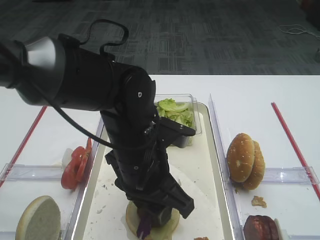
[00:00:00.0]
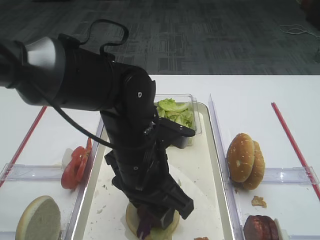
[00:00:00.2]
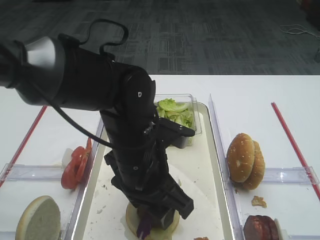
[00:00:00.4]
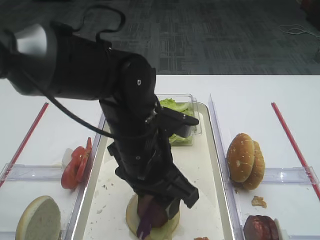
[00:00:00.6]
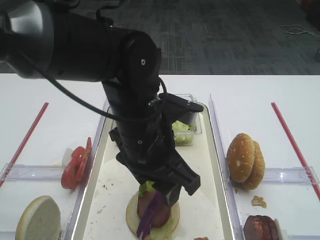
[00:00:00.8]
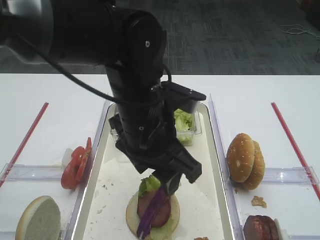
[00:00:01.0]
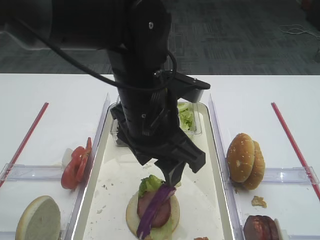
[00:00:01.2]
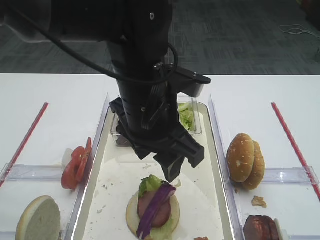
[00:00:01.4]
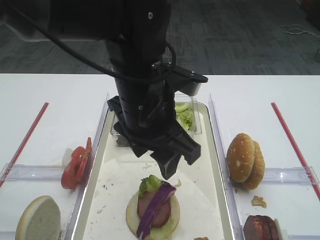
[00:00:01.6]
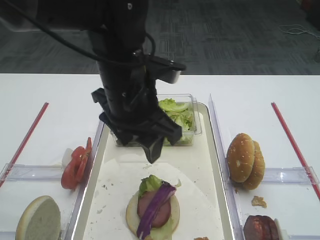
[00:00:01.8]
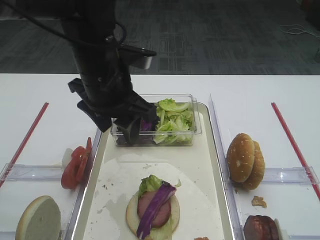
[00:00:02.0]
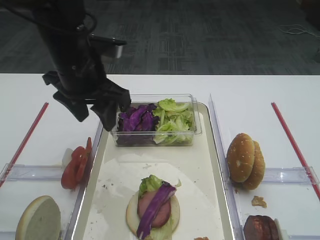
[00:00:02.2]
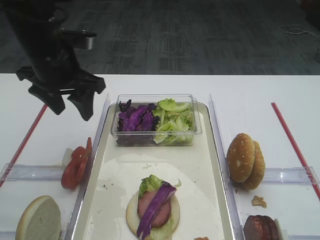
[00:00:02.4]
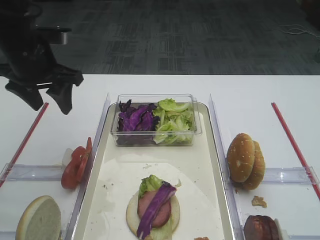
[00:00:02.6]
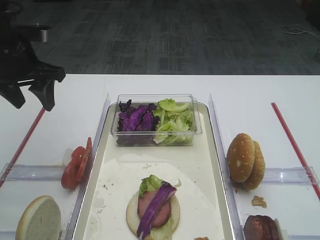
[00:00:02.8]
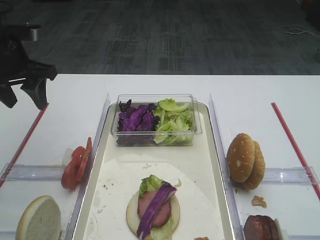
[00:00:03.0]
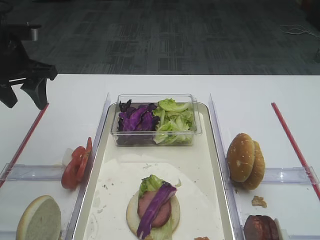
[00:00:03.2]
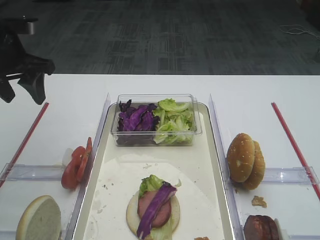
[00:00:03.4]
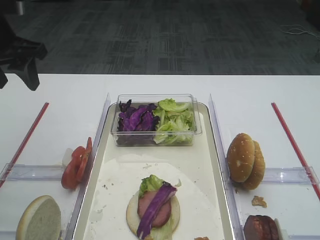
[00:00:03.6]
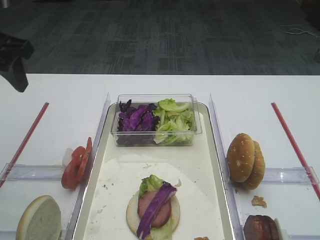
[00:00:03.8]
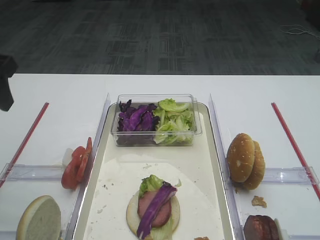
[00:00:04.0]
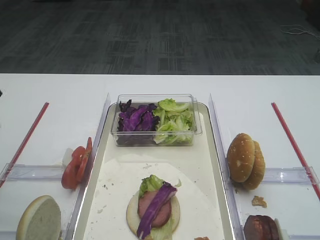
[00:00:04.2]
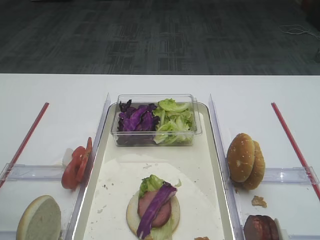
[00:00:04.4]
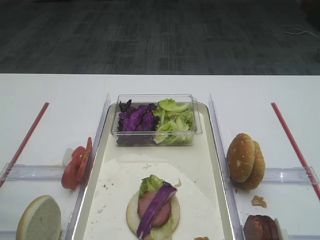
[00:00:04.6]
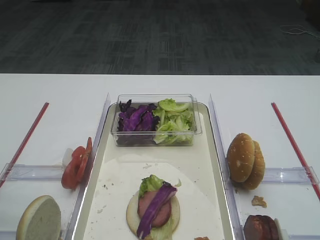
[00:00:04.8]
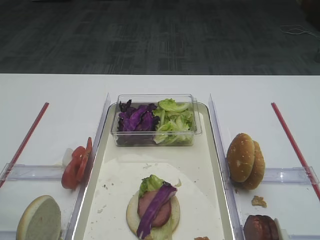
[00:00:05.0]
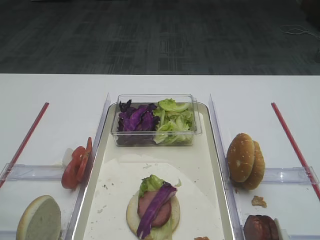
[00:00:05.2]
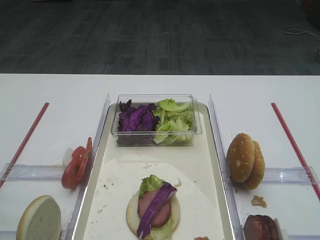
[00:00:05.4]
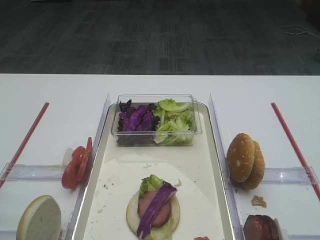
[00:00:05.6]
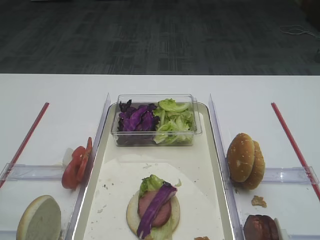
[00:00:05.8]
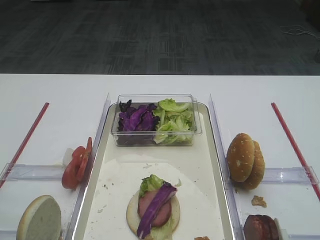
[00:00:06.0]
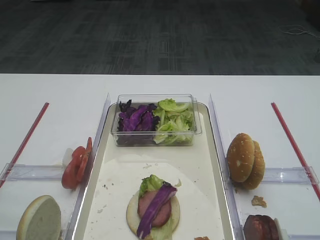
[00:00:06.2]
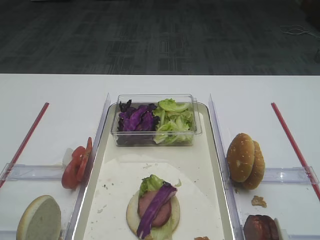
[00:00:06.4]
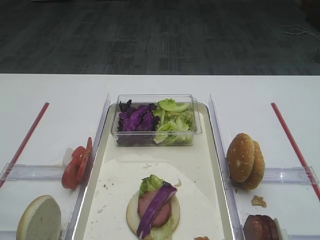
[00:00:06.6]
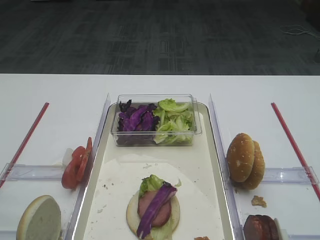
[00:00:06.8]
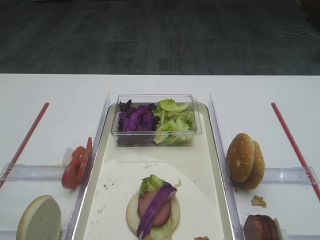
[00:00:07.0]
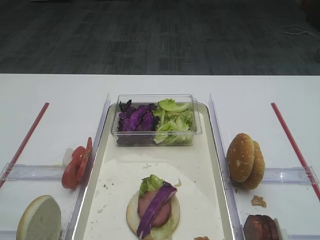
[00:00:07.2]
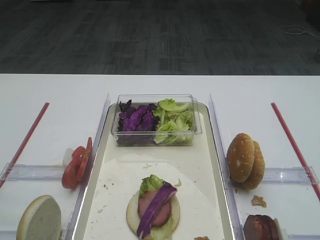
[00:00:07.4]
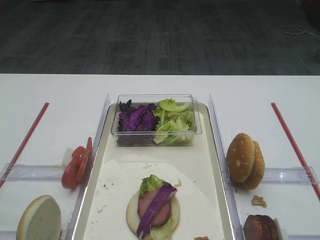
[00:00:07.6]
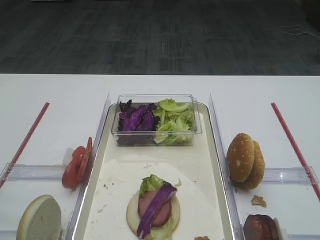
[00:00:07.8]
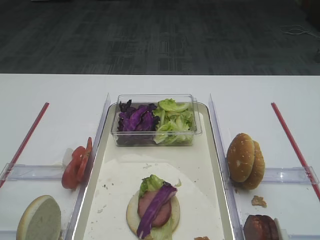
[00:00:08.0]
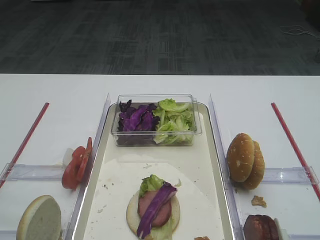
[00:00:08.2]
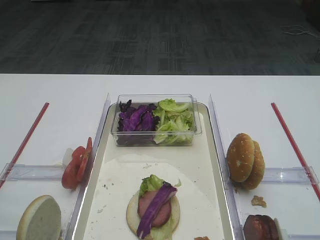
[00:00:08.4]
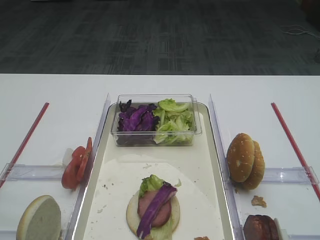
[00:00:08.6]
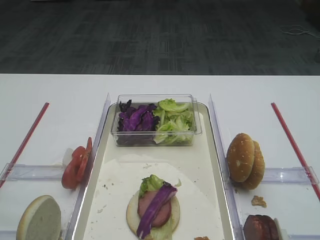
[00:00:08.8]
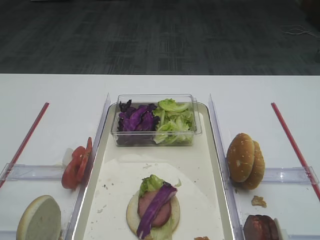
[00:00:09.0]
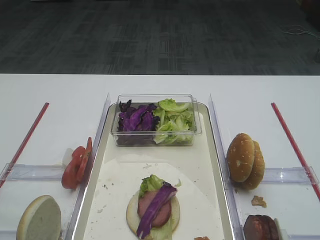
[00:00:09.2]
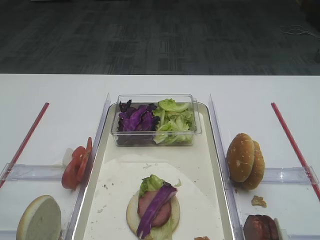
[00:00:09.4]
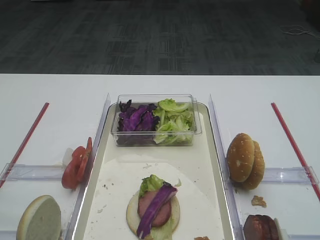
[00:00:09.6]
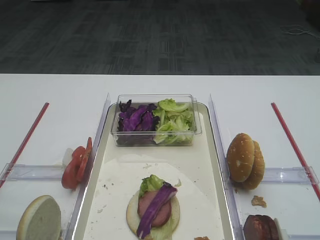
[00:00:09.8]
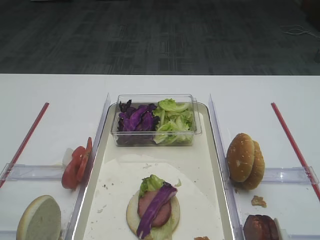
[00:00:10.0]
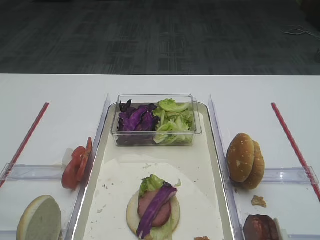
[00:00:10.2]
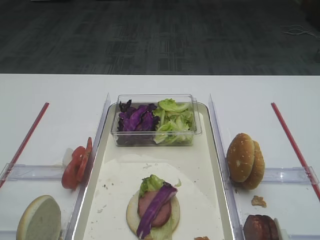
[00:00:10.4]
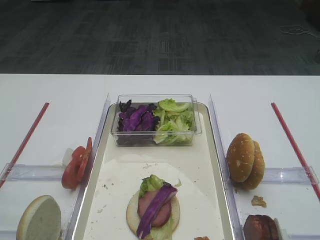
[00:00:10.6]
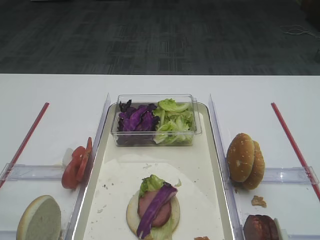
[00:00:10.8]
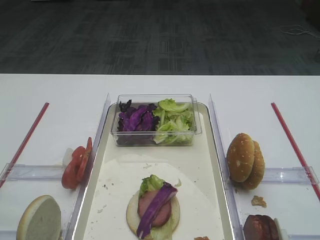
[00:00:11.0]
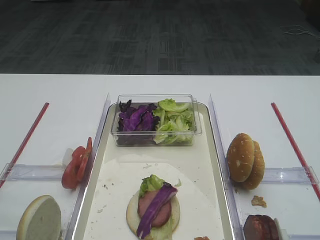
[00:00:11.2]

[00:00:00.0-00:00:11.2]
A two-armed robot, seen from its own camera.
Step, 00:00:00.0 to 00:00:02.0: Place the purple cabbage on the cutlet with the left gripper.
00:00:00.0 to 00:00:01.6: The left gripper is displaced upward by some 10 cm.
00:00:01.6 to 00:00:03.2: The left gripper travels to the left and forward by about 25 cm.
00:00:03.2 to 00:00:04.8: The left gripper is displaced backward by approximately 25 cm.
00:00:08.0 to 00:00:11.2: Both grippers stay put.

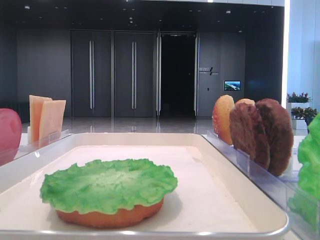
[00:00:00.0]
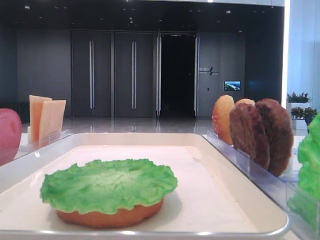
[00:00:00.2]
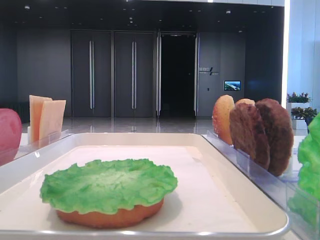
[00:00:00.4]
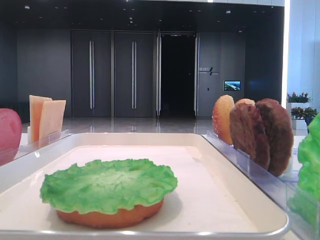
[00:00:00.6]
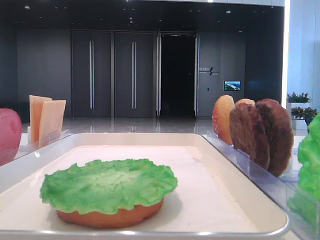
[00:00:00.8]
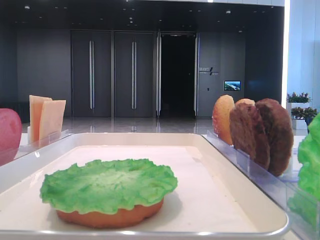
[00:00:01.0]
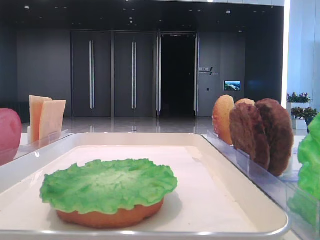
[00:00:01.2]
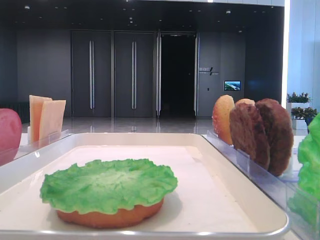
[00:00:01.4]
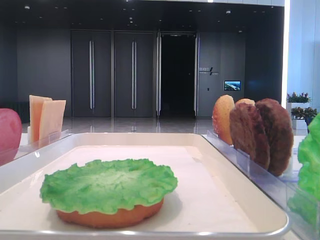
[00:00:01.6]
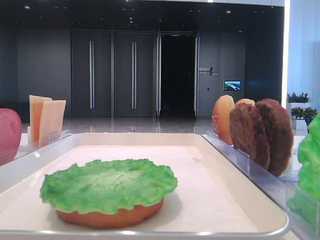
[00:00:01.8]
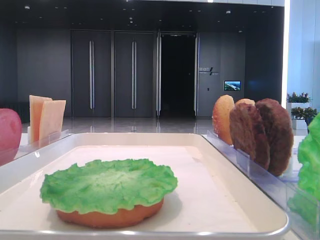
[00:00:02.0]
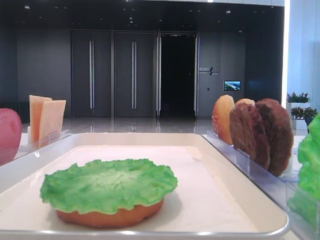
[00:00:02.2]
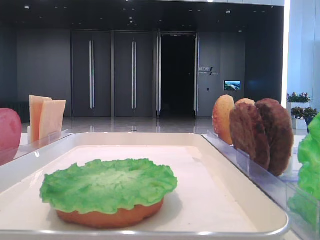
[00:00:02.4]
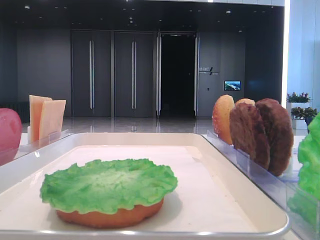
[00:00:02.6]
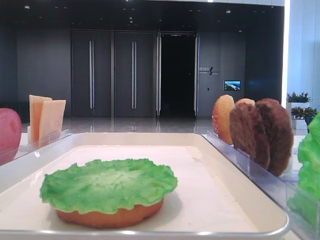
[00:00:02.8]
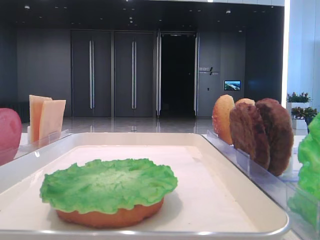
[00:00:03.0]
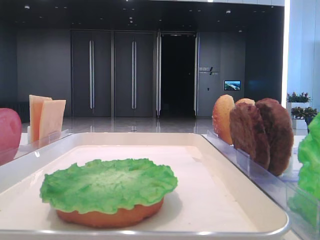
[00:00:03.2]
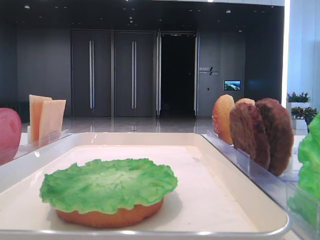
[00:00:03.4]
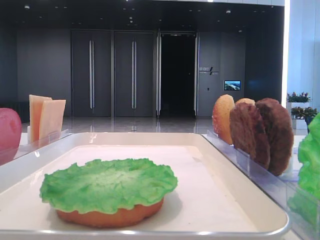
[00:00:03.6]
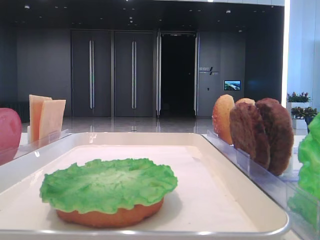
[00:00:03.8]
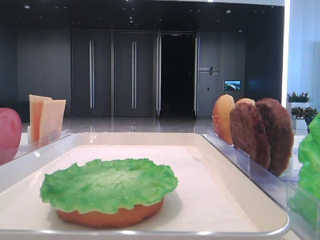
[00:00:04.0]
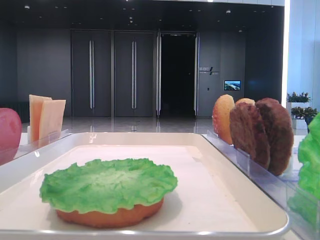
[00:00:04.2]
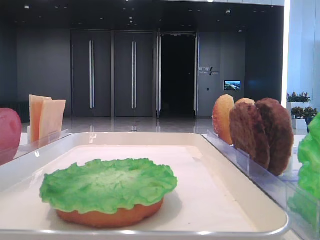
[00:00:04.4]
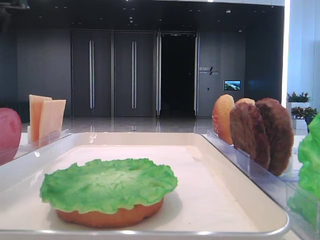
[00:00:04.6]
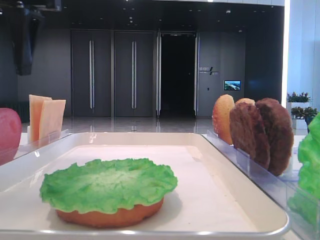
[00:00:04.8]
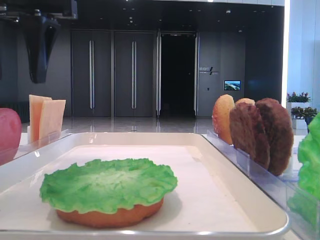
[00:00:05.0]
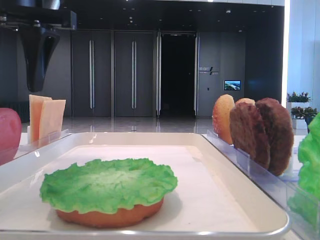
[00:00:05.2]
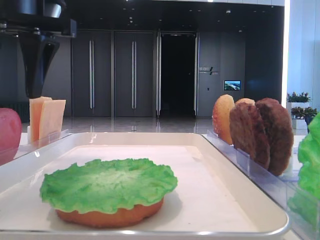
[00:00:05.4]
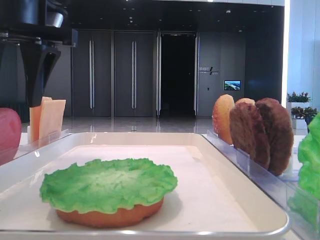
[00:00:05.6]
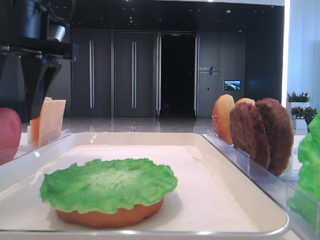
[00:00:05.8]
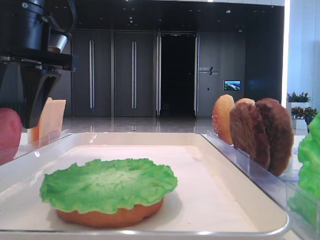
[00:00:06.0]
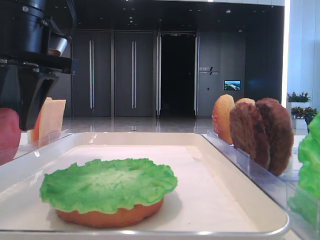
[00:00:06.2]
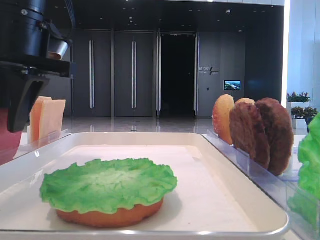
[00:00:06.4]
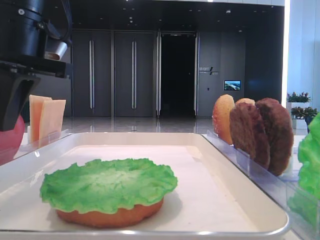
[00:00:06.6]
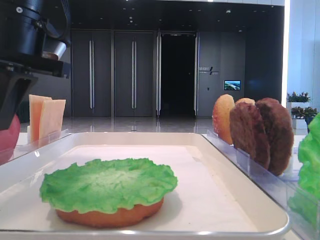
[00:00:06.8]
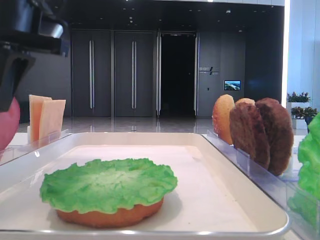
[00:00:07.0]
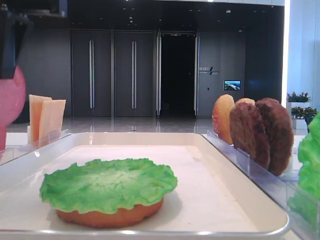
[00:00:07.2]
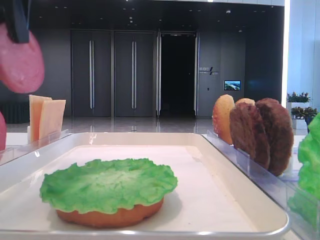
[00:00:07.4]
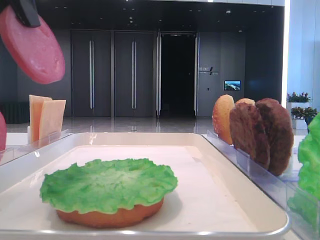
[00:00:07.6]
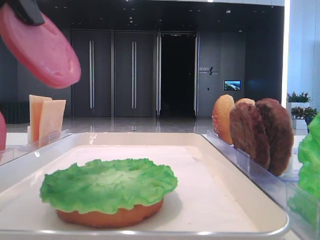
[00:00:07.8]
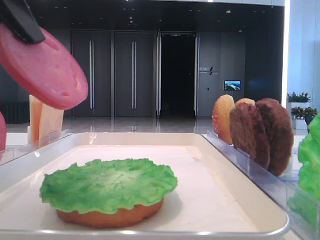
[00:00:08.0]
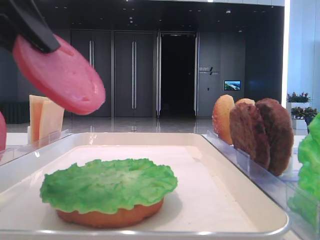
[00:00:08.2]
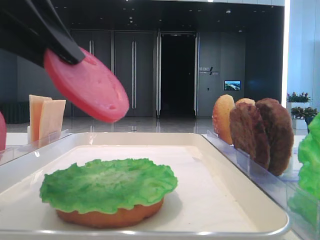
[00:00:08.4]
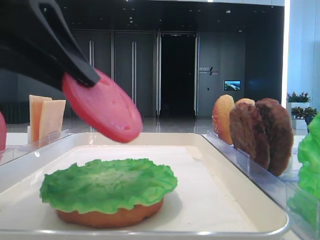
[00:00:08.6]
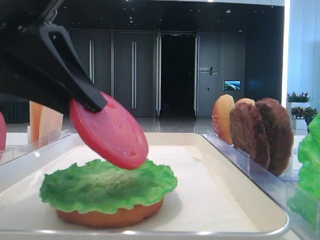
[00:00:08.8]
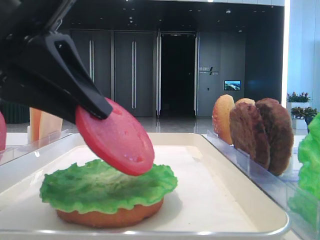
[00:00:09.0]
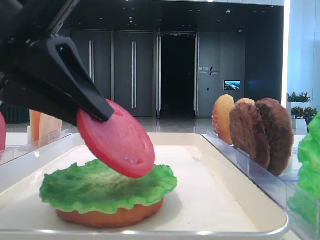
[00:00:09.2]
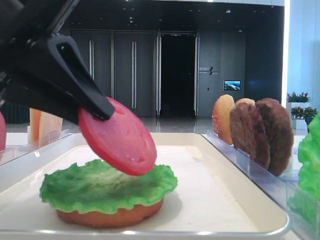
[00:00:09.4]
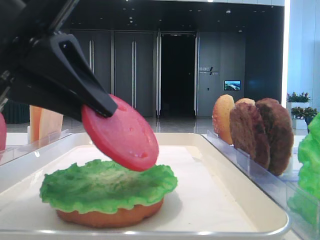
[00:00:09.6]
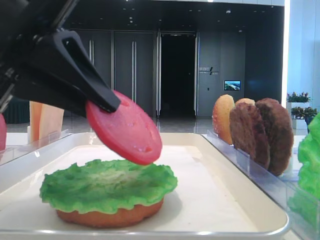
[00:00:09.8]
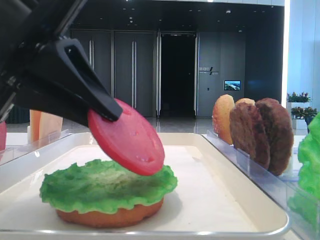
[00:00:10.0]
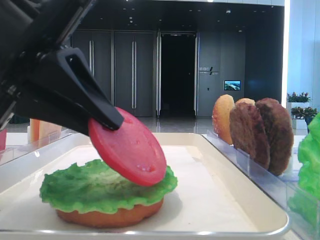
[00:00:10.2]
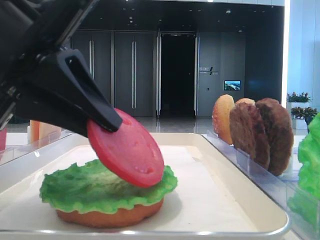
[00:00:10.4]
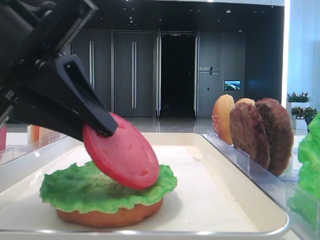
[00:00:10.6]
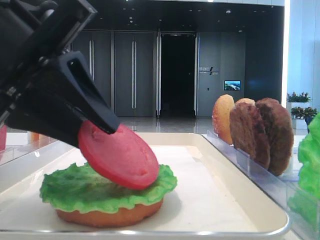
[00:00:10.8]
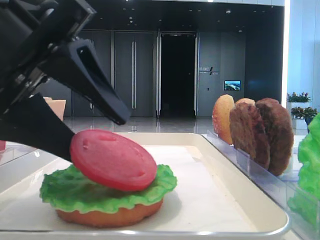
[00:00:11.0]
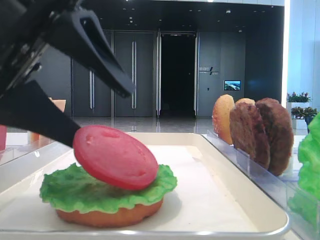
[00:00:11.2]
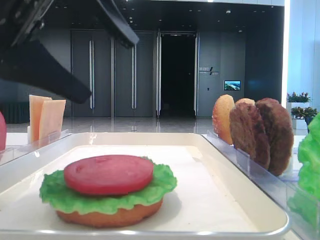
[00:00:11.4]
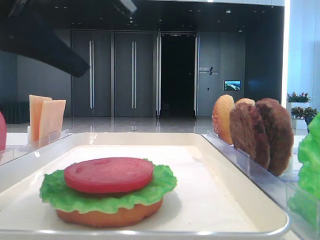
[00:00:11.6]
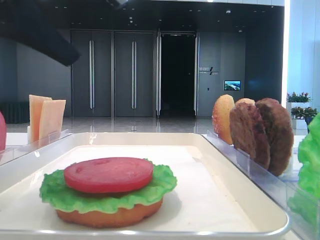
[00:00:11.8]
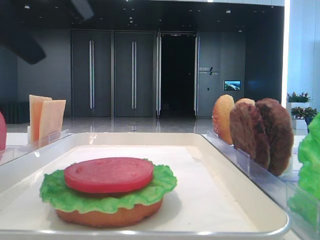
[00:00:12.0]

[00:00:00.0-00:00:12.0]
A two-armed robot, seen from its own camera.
Step, 00:00:00.0 to 00:00:06.6: Pick up the tomato slice with the left hand.
Step, 00:00:06.8 to 00:00:11.2: Place the tomato slice on the lettuce leaf with the left hand.
00:00:04.4 to 00:00:06.0: The left gripper moves to the right and downward, about 10 cm.
00:00:06.0 to 00:00:07.6: The left gripper moves backward and upward, approximately 10 cm, and closes up.
00:00:07.6 to 00:00:09.0: The left gripper travels downward by about 10 cm.
00:00:09.0 to 00:00:10.4: Both grippers stay about where they are.
00:00:10.4 to 00:00:12.0: The left gripper moves upward, some 10 cm, and opens its fingers.
